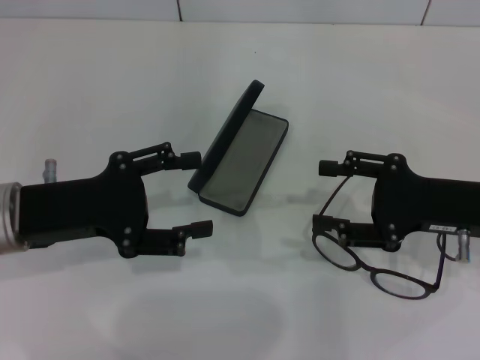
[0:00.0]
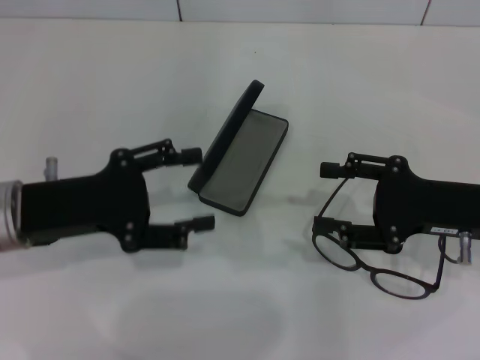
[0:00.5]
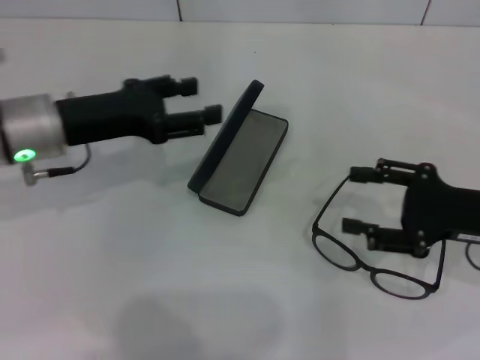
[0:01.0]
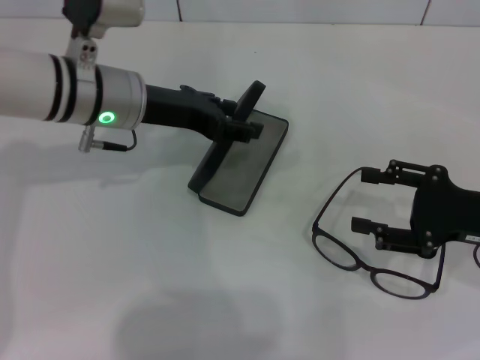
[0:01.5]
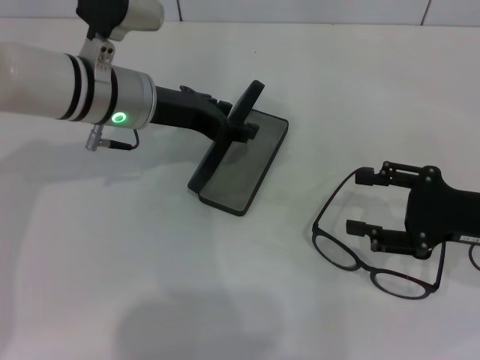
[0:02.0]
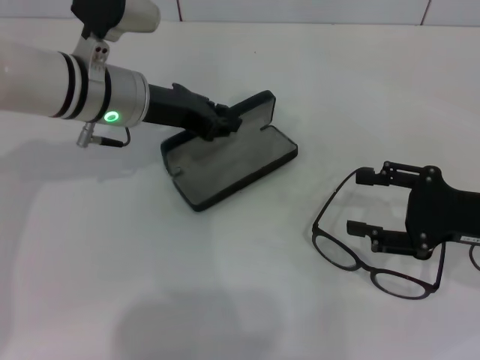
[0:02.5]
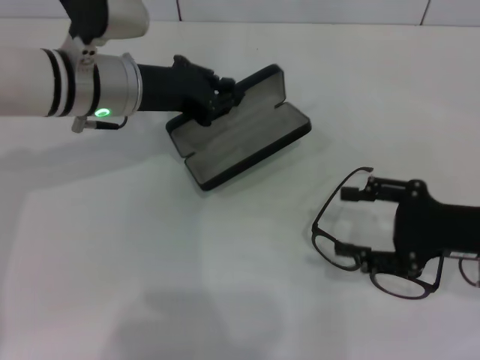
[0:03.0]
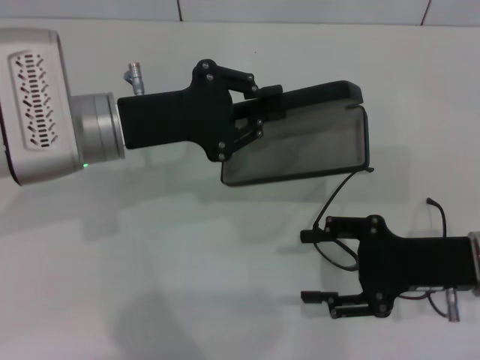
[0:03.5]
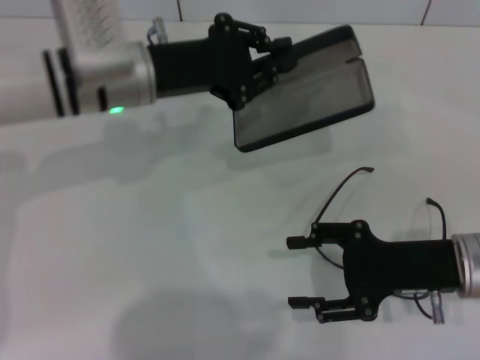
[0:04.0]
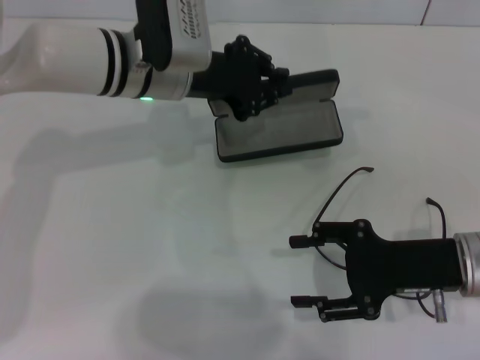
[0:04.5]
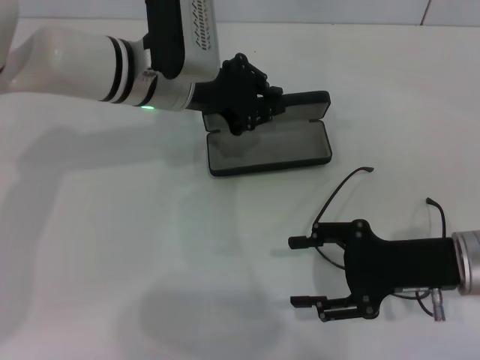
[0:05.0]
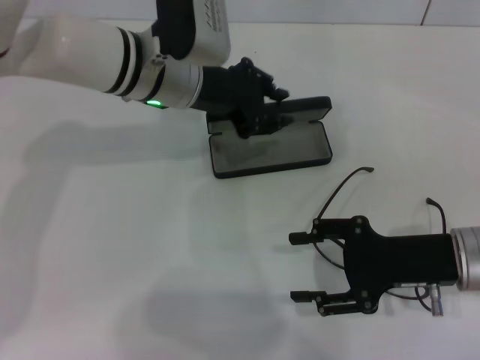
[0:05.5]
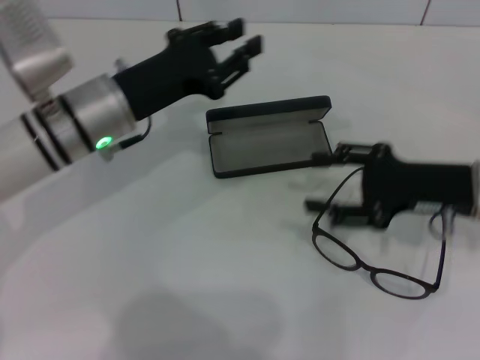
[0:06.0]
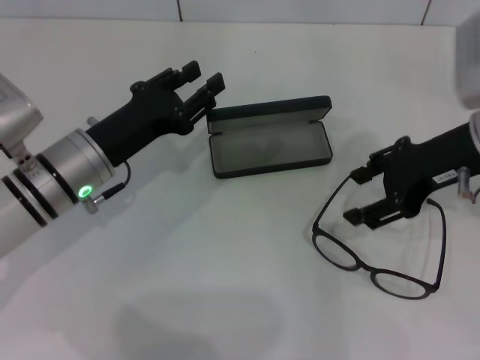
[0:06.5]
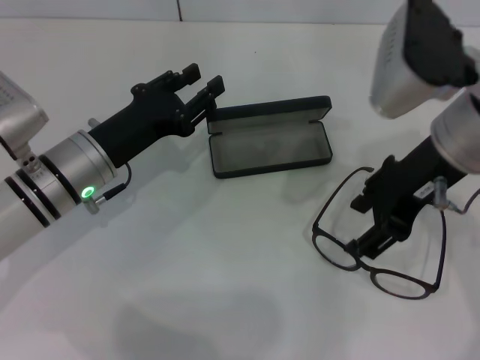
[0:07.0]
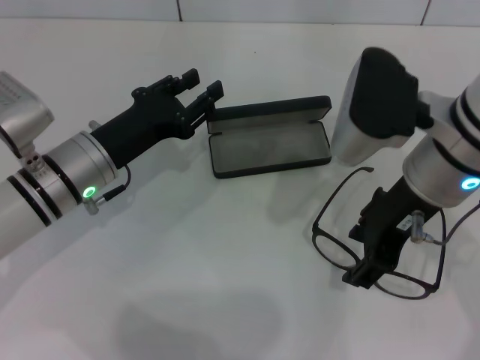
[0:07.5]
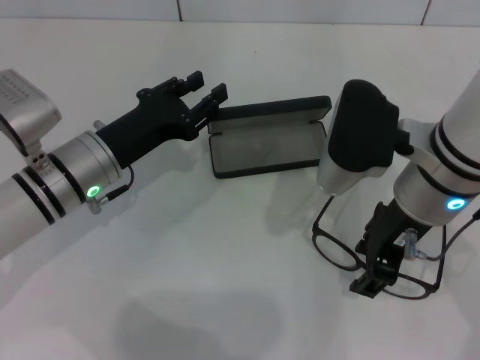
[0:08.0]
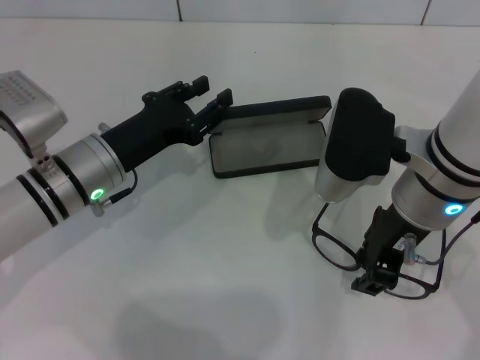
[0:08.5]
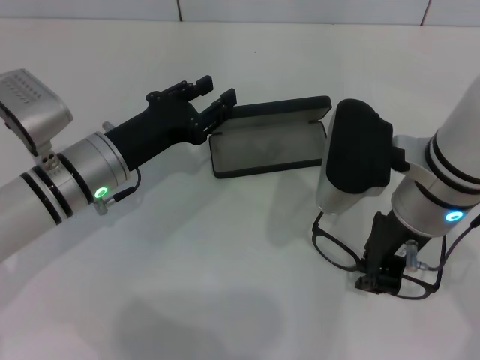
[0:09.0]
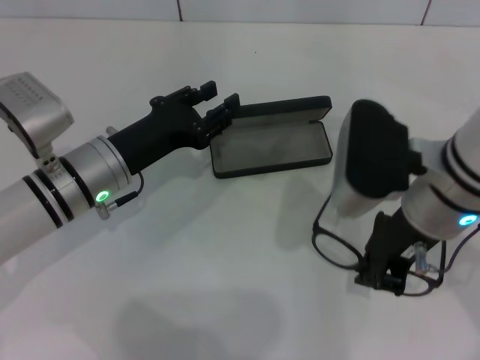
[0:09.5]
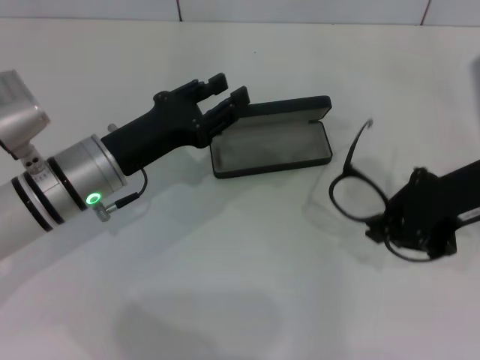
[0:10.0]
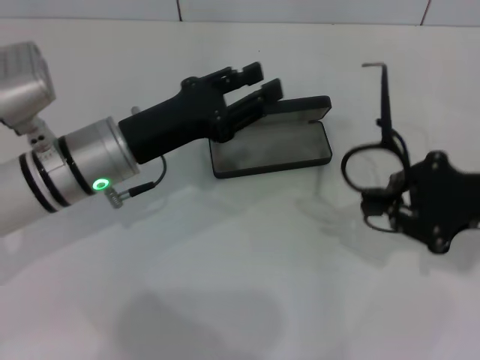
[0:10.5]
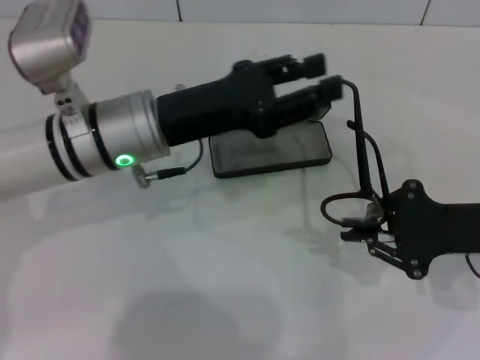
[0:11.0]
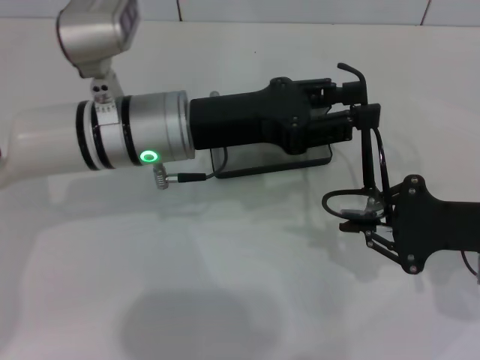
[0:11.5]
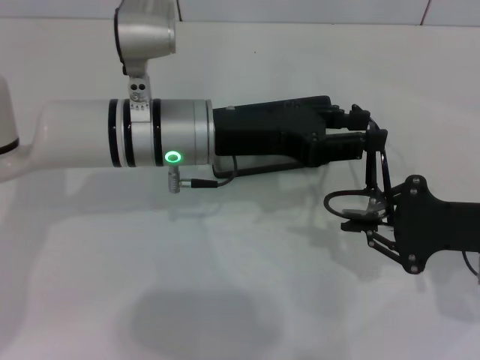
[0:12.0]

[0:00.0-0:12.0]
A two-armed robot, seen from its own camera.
Step, 0:00.0 to 0:02.5: Grab the glasses case with your left hand.
Step, 0:03.0 to 0:05.0: Place the glasses case in the center of the table with your left hand.
Step, 0:06.0 to 0:09.0: Grab the eyeglass frame with your right hand.
0:00.0 to 0:02.0: The left gripper heads forward and to the right, covering some 15 cm.
0:02.0 to 0:04.0: The left gripper closes its fingers; the right gripper heads to the left, covering approximately 5 cm.
0:04.0 to 0:06.0: The right gripper shifts by some 5 cm; the left gripper changes place by approximately 5 cm.
0:06.0 to 0:08.0: The right gripper travels to the left and upward by approximately 15 cm; the left gripper moves approximately 5 cm.
0:08.0 to 0:10.0: The right gripper shifts about 10 cm to the right, and closes its fingers.
0:10.0 to 0:12.0: The left gripper moves to the right and upward, roughly 10 cm. Meanwhile the right gripper goes approximately 10 cm downward.

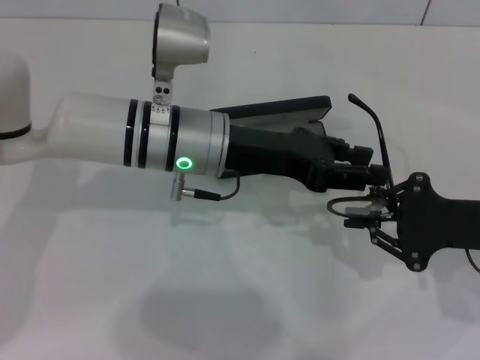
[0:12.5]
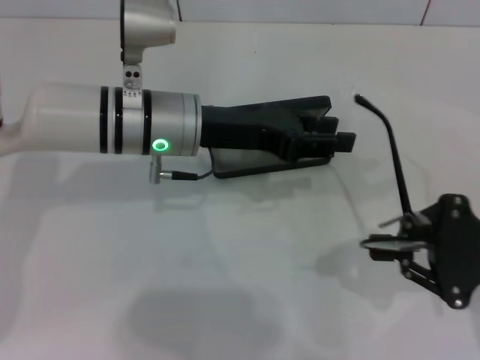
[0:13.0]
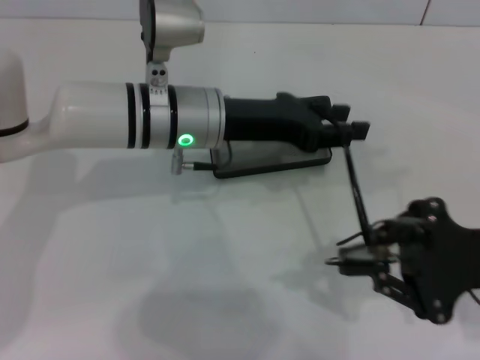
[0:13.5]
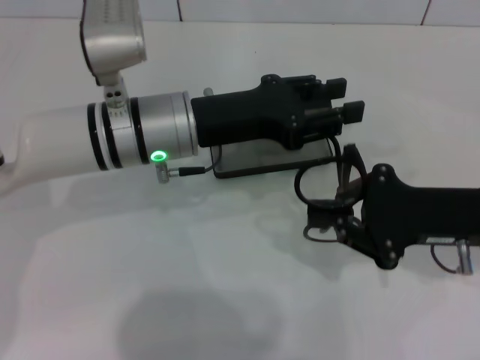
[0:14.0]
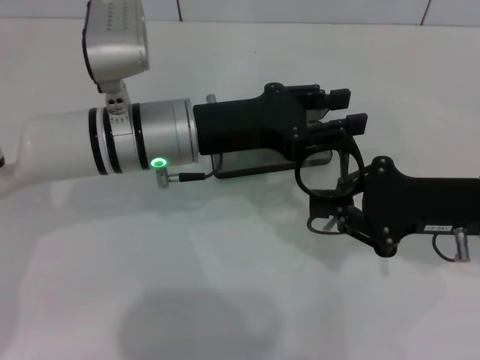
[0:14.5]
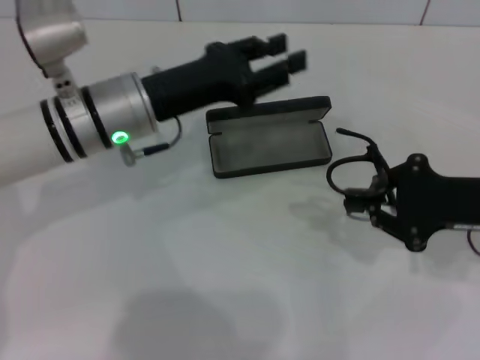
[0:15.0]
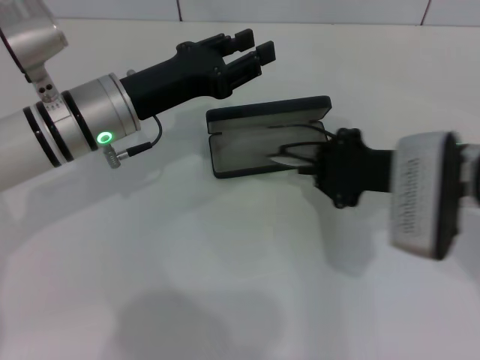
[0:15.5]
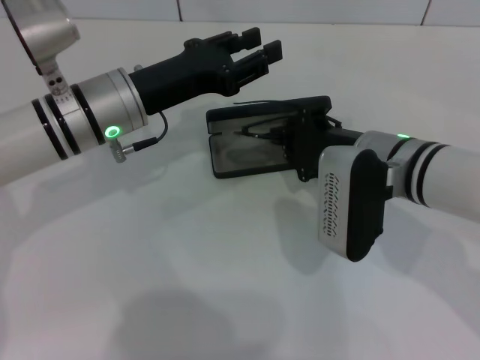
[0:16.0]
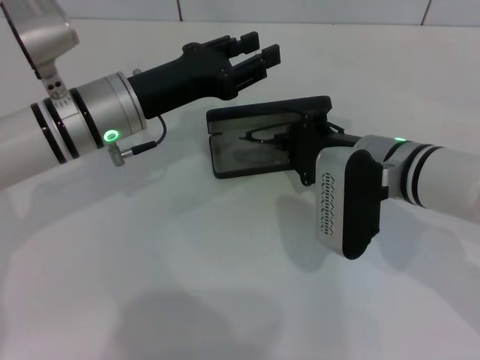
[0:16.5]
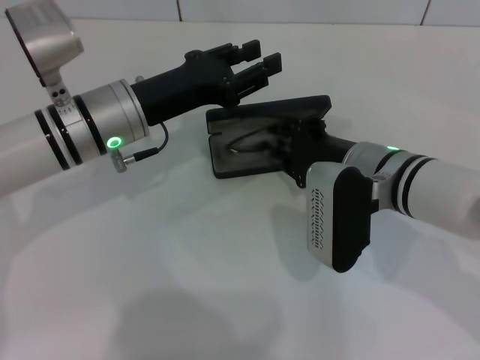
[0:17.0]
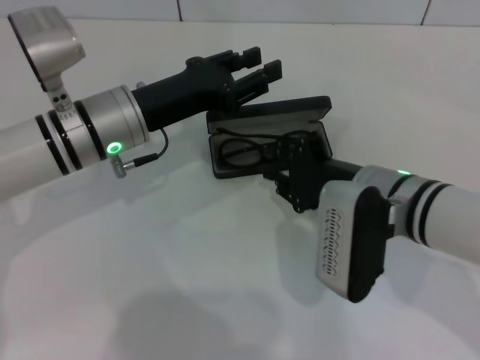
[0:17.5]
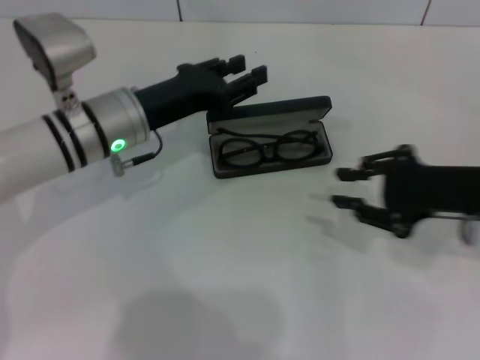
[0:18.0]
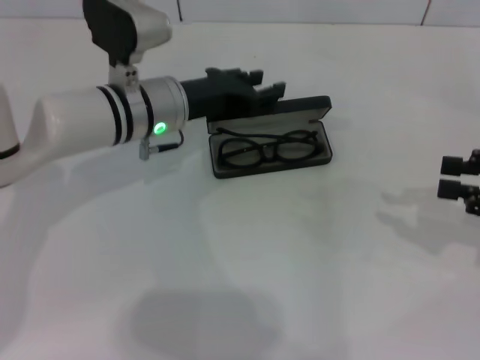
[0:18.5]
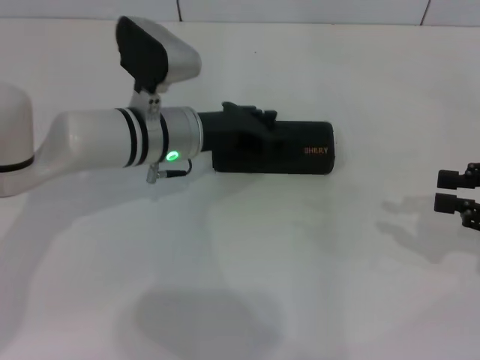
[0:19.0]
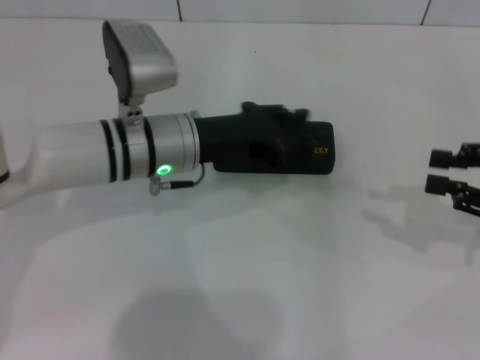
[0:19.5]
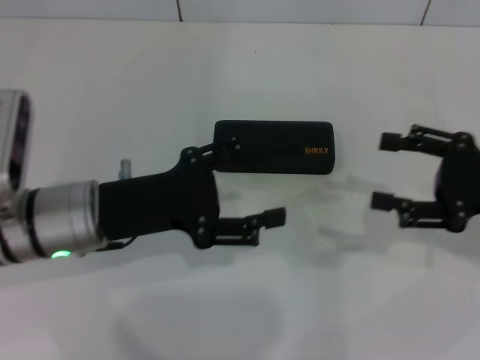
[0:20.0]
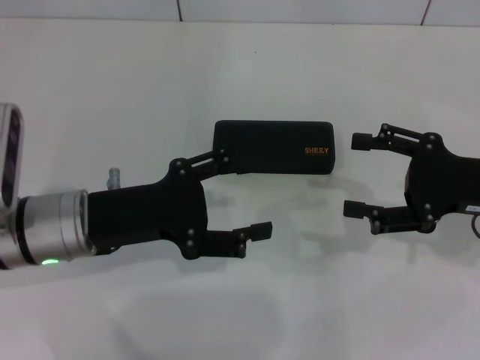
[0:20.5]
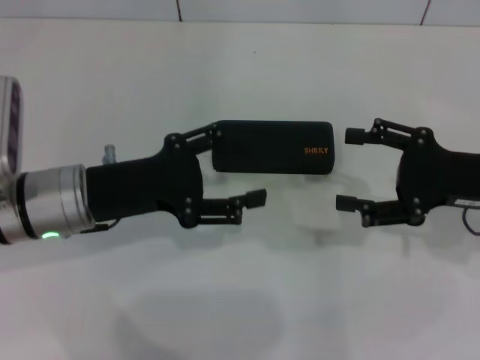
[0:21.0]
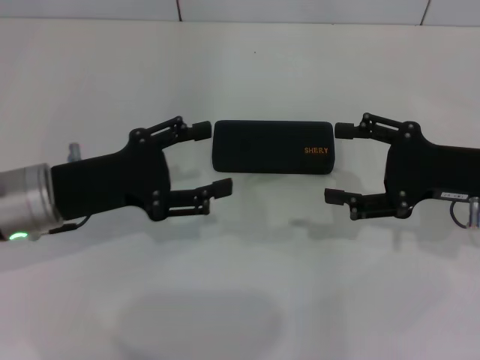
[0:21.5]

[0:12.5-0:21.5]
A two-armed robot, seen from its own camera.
Step, 0:12.5 to 0:14.5: Fold the frame with your left hand.
Step, 0:15.0 to 0:17.0: Put the glasses into the case with your right hand.
Step, 0:17.5 to 0:18.5: Close the glasses case with your left hand.
0:14.5 to 0:17.0: The left gripper shifts by roughly 5 cm, while the right gripper heads to the left, covering about 10 cm.
0:17.0 to 0:19.5: The right gripper heads to the right, covering about 20 cm.
0:19.5 to 0:21.5: The right gripper is displaced to the left by about 10 cm, and opens up, while the left gripper is displaced to the left and backward by approximately 15 cm, and opens up.

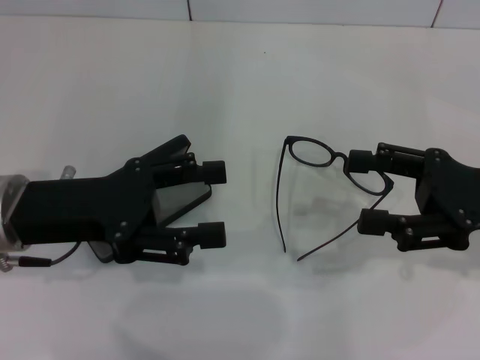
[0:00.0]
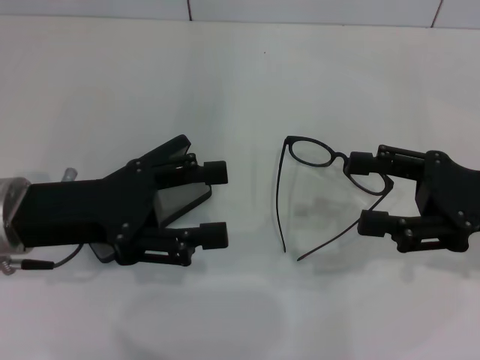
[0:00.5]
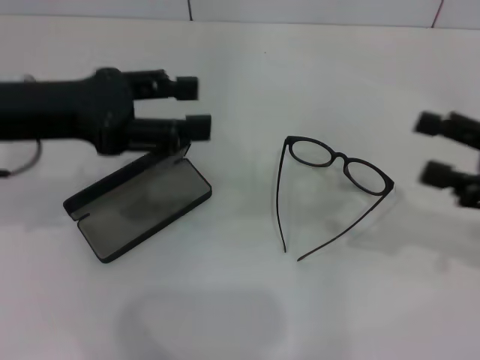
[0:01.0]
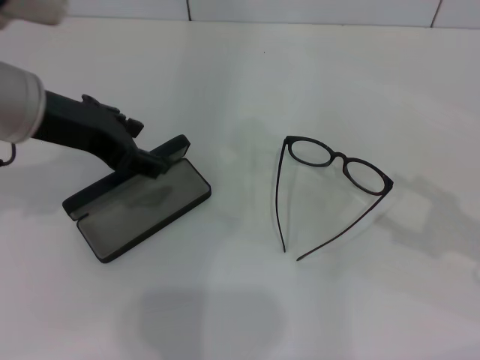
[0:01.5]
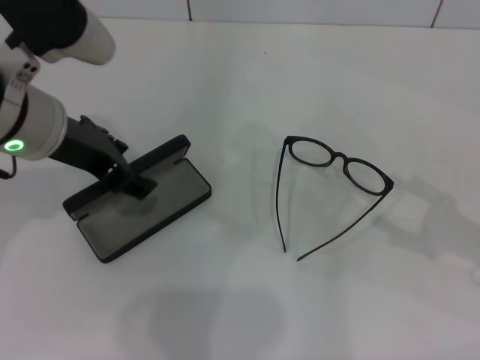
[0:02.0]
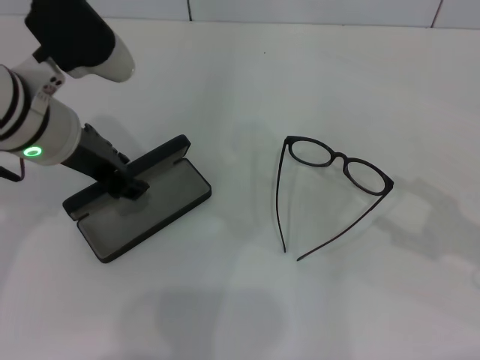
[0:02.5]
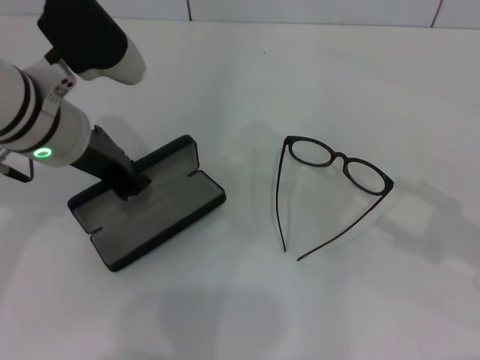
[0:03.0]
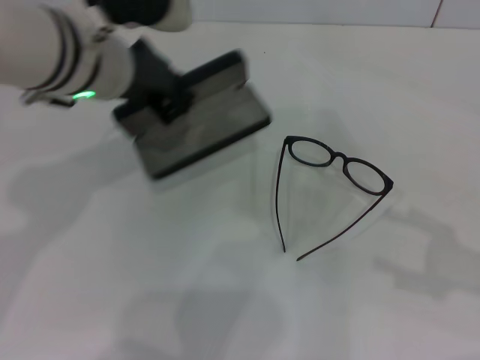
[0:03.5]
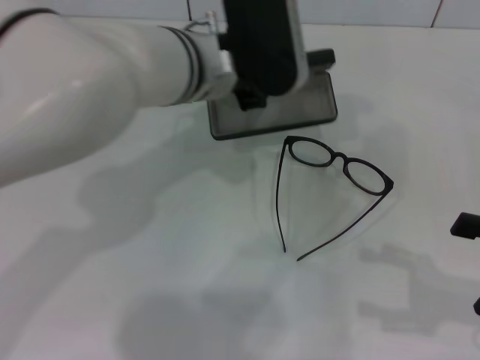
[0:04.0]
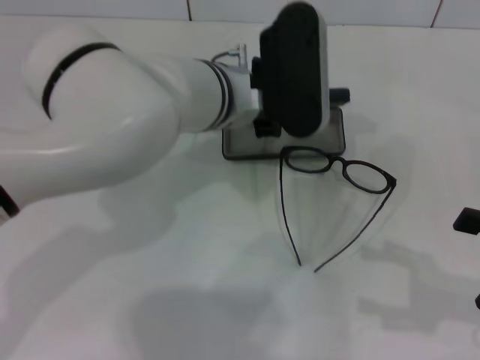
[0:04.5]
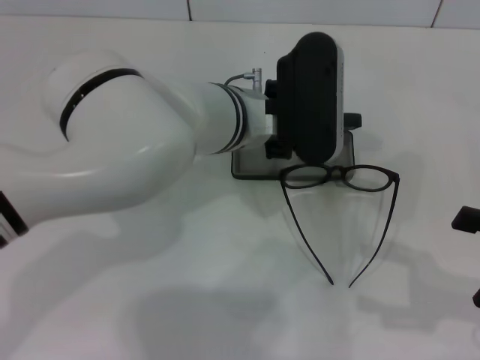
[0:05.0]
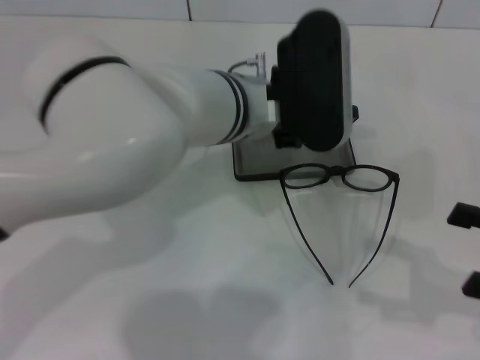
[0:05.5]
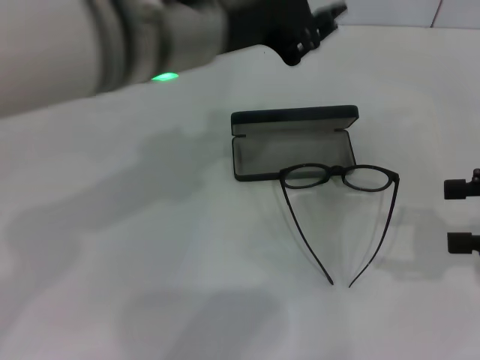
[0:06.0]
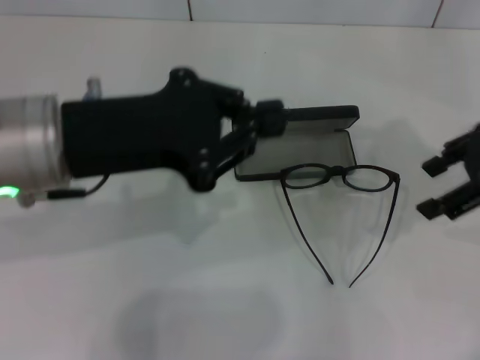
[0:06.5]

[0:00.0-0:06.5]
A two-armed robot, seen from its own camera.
Step, 0:00.0 to 0:02.5: Grab the glasses case with your left hand.
Step, 0:03.0 to 0:05.0: Place the glasses case in the center of the table with your left hand.
0:00.0 to 0:02.0: The right gripper moves to the right and backward, approximately 10 cm; the left gripper heads upward and forward, covering some 10 cm.
0:02.0 to 0:04.5: The left gripper goes approximately 15 cm to the right, and closes up.
0:04.5 to 0:06.5: The right gripper moves forward, upward and to the left, about 20 cm. Meanwhile the left gripper travels to the left, backward and upward by approximately 20 cm.
